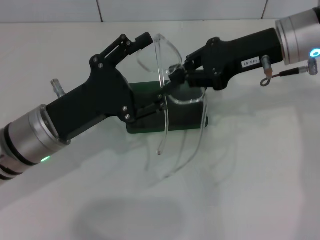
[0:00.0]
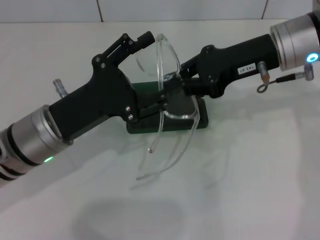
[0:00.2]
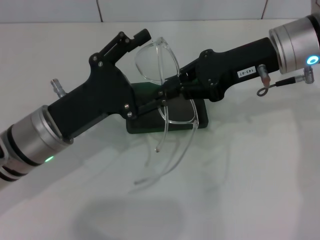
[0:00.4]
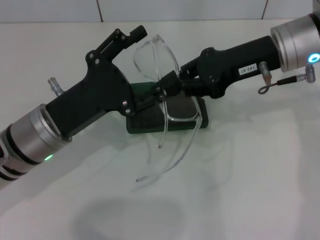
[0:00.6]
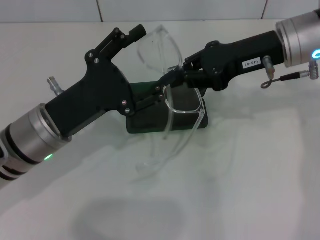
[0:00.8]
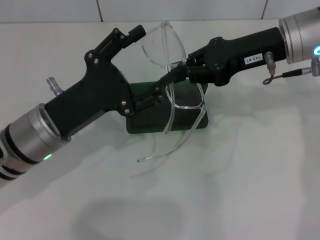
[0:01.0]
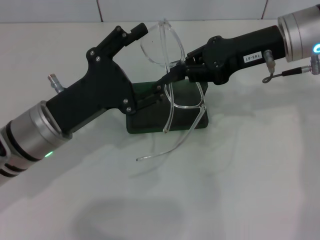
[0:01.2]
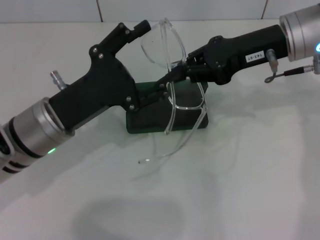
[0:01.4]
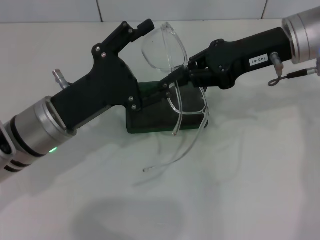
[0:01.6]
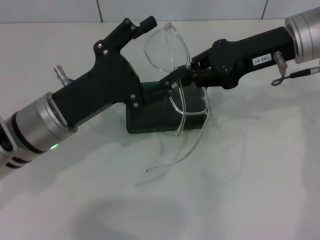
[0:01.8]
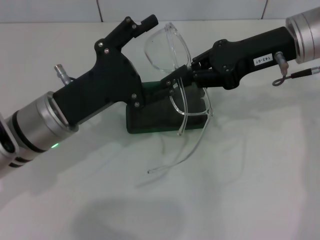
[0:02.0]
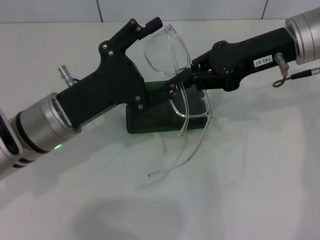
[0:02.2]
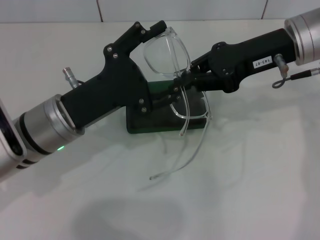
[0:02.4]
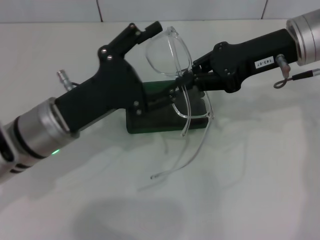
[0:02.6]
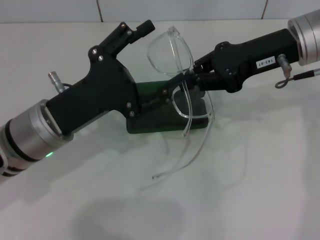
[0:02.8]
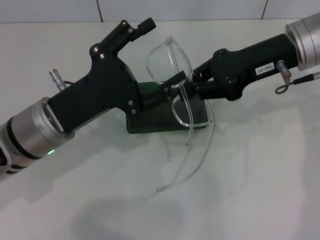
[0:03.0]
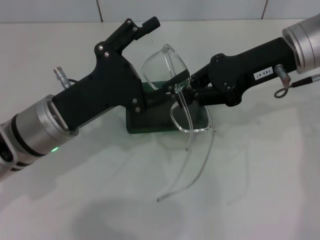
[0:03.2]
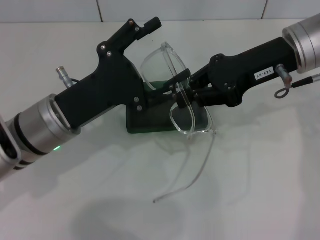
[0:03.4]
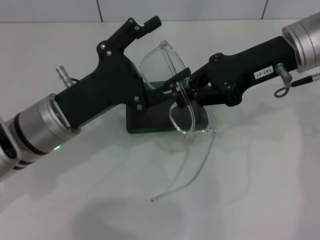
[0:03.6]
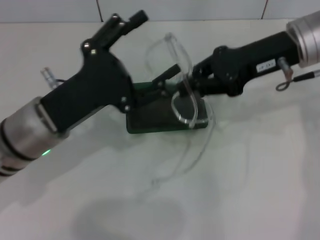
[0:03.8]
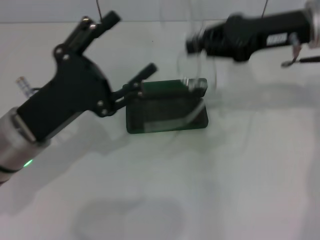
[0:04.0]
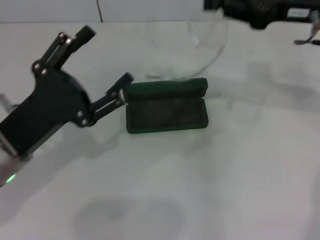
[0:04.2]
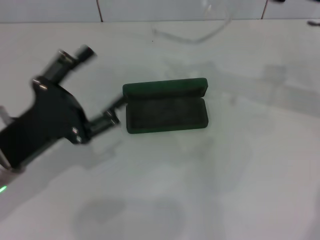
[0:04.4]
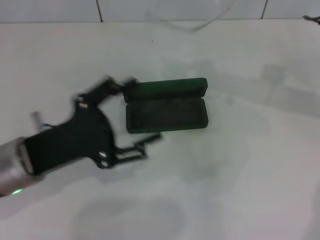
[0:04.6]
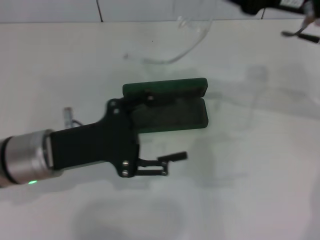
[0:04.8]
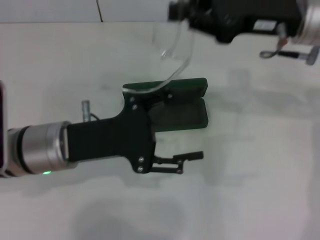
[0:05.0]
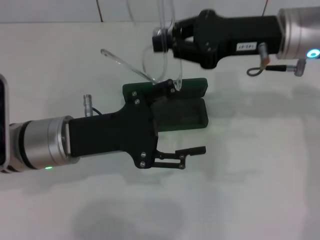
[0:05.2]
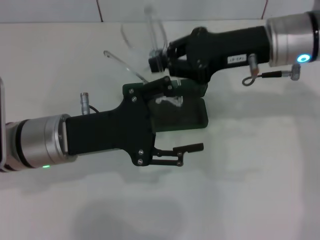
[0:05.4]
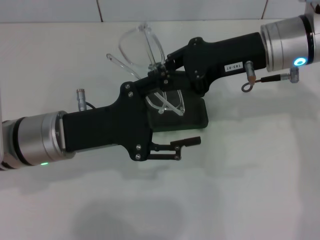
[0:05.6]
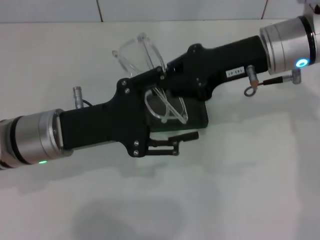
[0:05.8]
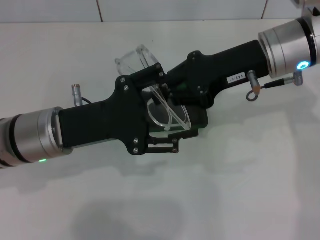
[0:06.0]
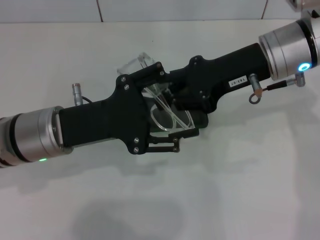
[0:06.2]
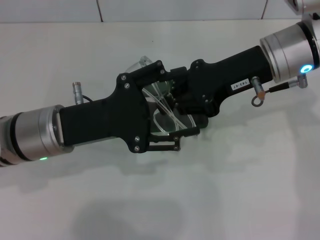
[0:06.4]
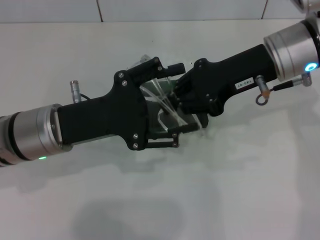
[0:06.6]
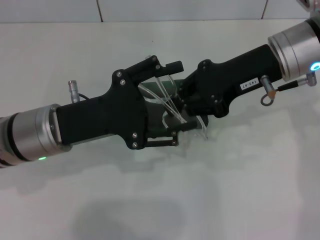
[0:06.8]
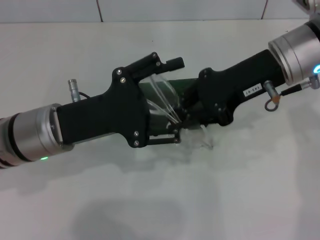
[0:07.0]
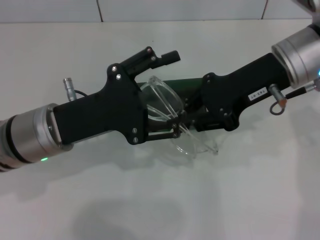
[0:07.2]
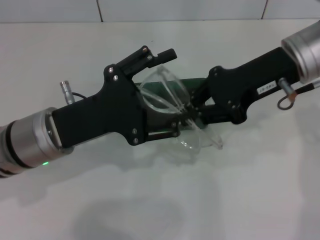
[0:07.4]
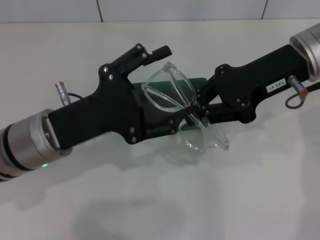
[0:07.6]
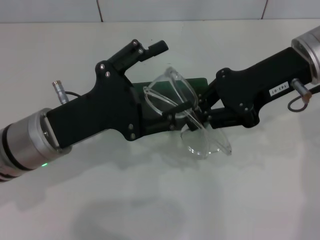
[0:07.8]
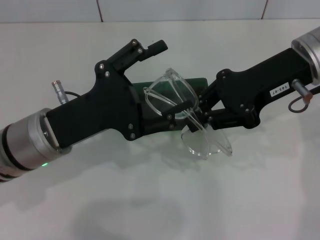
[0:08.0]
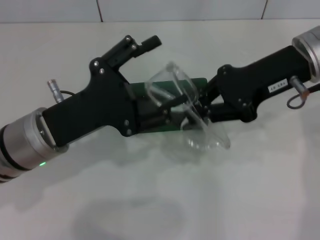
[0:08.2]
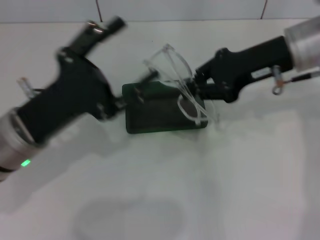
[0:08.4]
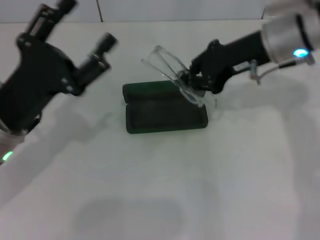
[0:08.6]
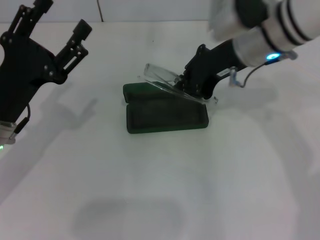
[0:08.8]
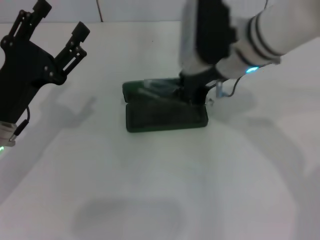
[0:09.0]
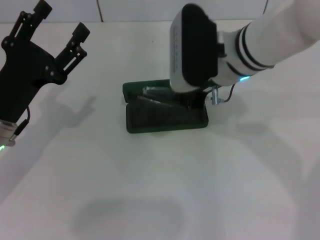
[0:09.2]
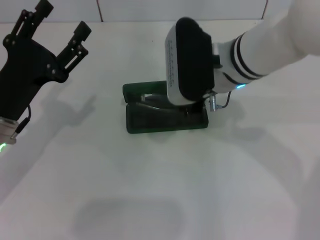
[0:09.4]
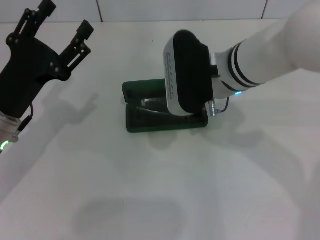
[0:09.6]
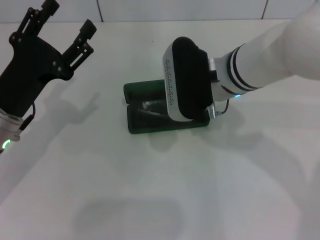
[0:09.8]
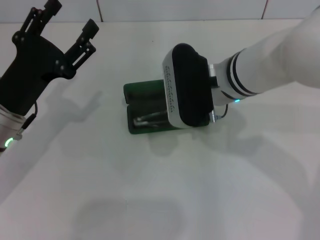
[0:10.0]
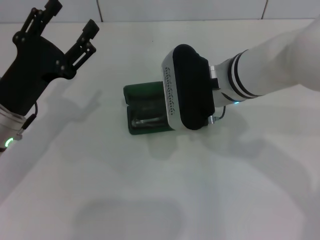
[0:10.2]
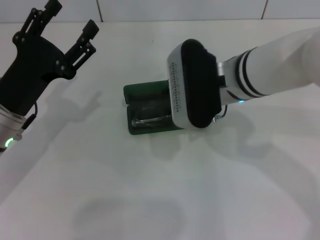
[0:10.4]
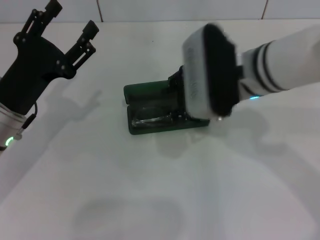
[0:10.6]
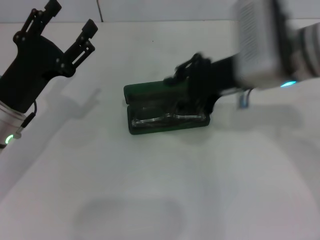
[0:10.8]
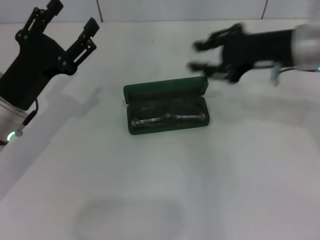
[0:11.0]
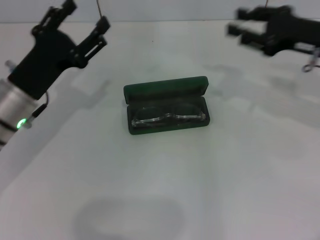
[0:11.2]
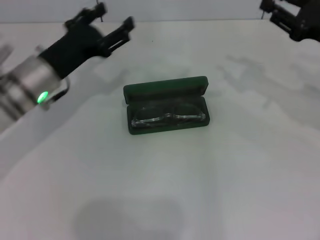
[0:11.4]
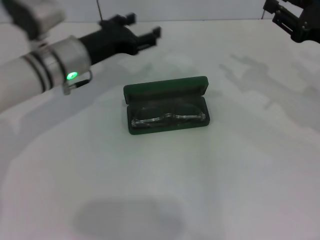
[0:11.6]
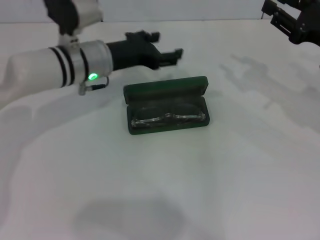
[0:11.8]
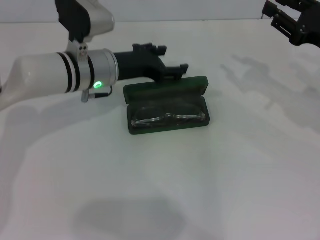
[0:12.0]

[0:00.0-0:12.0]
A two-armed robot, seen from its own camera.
Step, 0.0 to 8.0 s: Fold the frame with your left hand.
Step, 8.4 to 10.4 s: Put the glasses into the case with your right hand.
0.0 to 3.0 s: The grippers move only a little.
3.0 to 4.4 s: The right gripper shifts about 5 cm to the right. The left gripper moves to the left, about 5 cm.
4.4 to 6.0 s: The right gripper heads to the left, covering about 10 cm. The left gripper moves to the right, about 5 cm.
7.6 to 9.0 s: The grippers both shift to the left by approximately 10 cm.
9.0 to 10.4 s: The right gripper opens.
10.4 to 12.0 s: The left gripper goes roughly 15 cm forward and to the right, while the right gripper travels to the right by about 20 cm.

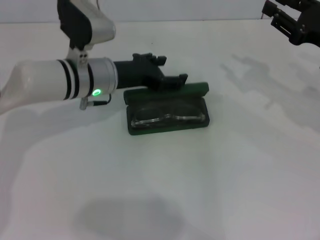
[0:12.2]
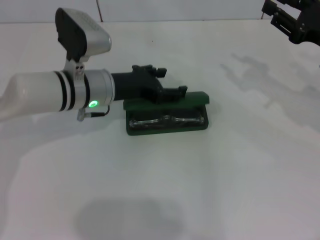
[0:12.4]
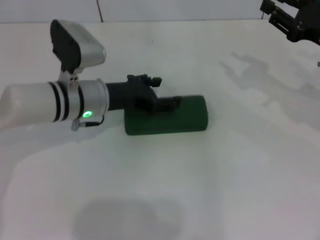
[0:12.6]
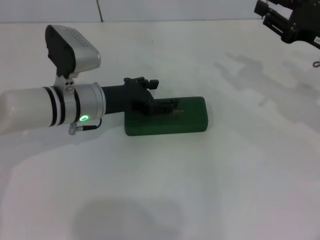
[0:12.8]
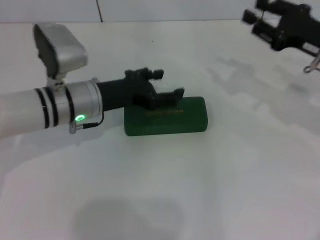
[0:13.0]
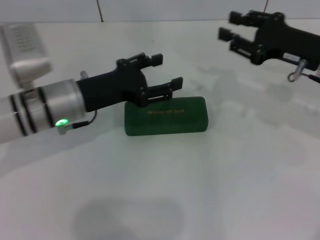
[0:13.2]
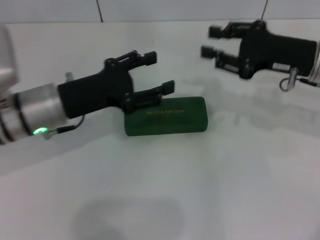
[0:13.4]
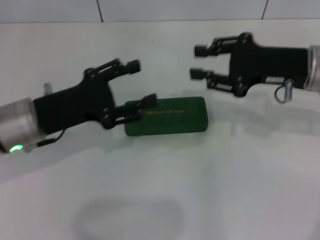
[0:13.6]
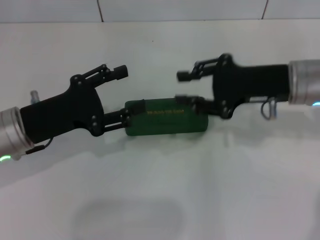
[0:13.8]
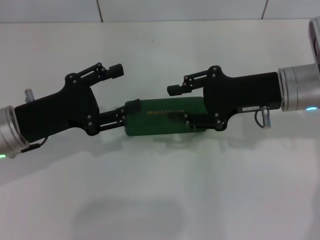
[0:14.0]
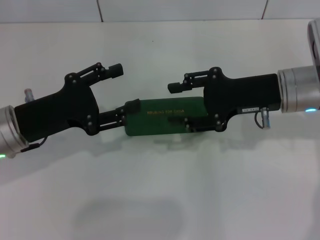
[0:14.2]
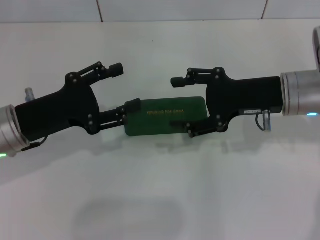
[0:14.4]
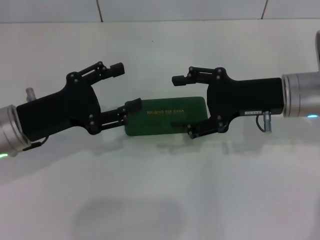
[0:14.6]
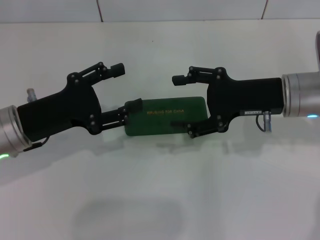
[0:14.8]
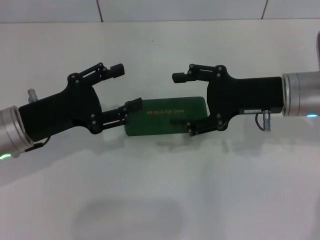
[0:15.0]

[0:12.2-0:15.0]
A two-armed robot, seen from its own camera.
12.2 to 13.6 s: The left gripper travels backward and to the left by roughly 15 cm; the right gripper goes approximately 5 cm to the left.
13.6 to 15.0 s: The right gripper opens.

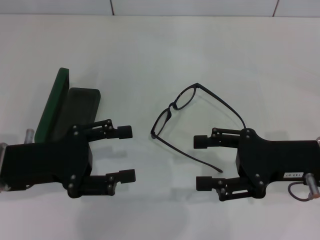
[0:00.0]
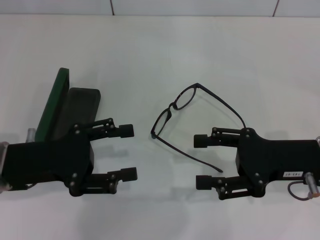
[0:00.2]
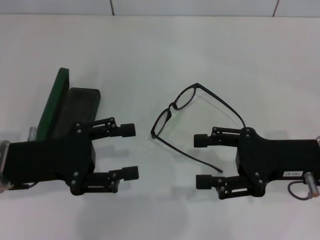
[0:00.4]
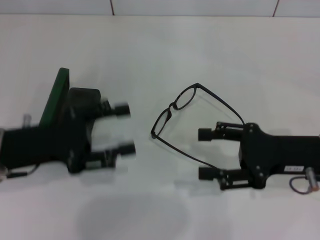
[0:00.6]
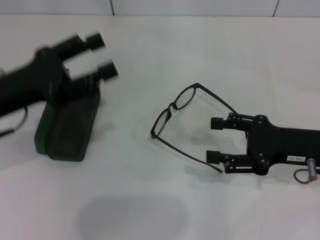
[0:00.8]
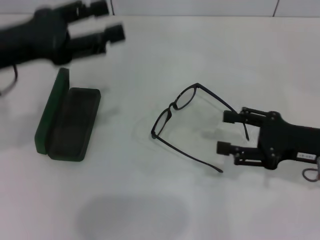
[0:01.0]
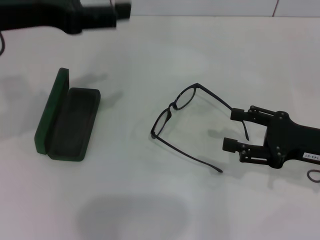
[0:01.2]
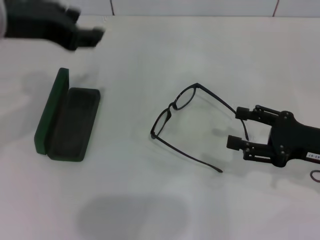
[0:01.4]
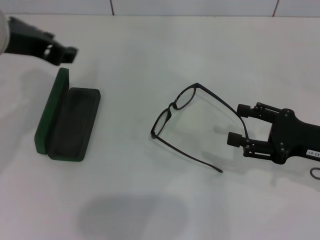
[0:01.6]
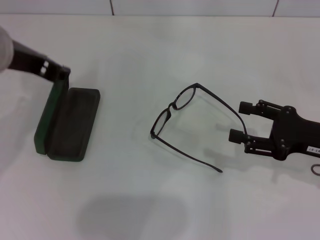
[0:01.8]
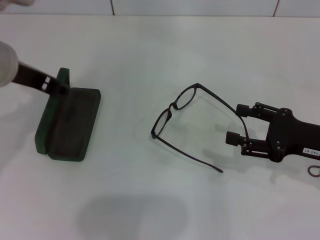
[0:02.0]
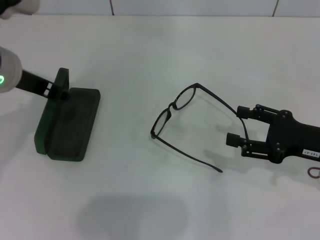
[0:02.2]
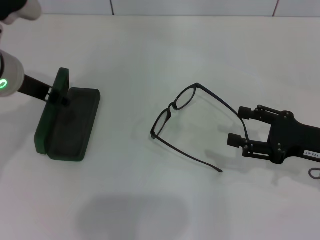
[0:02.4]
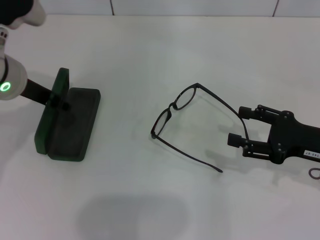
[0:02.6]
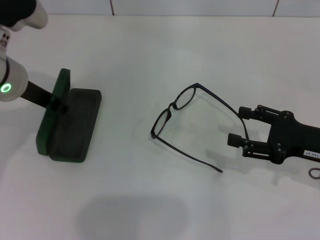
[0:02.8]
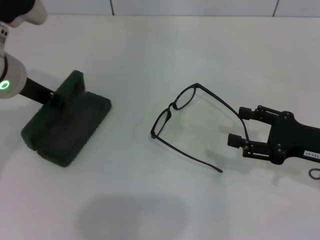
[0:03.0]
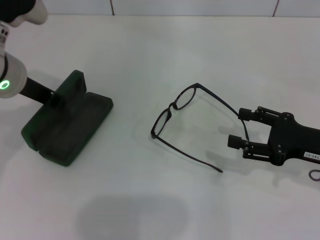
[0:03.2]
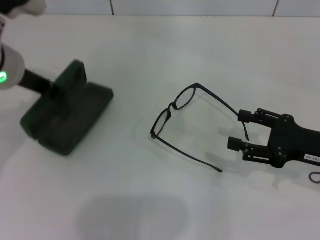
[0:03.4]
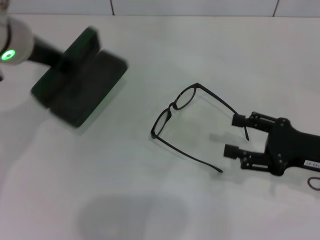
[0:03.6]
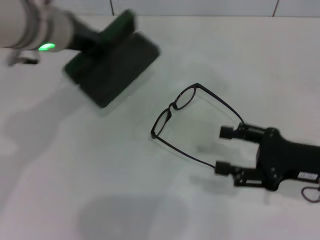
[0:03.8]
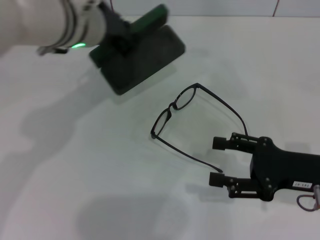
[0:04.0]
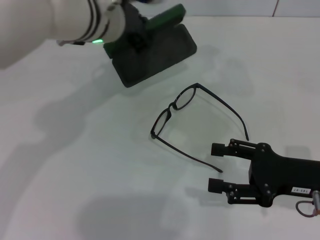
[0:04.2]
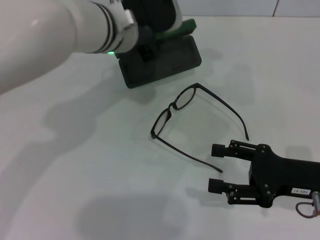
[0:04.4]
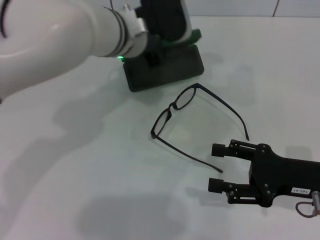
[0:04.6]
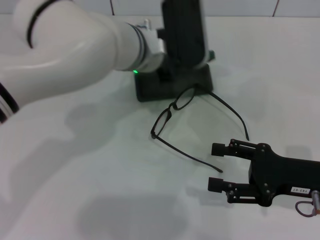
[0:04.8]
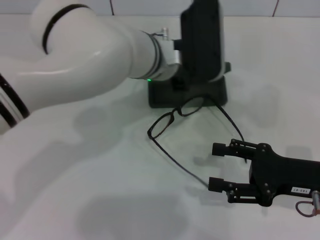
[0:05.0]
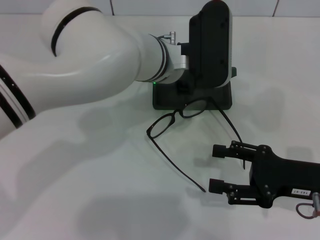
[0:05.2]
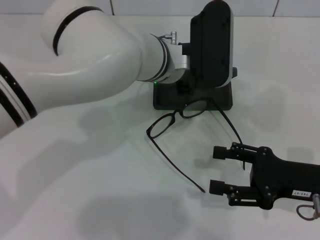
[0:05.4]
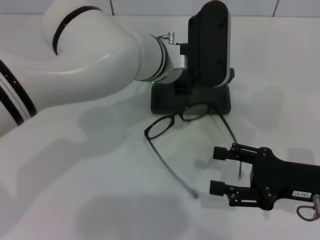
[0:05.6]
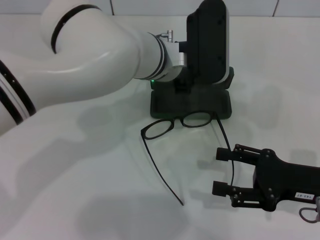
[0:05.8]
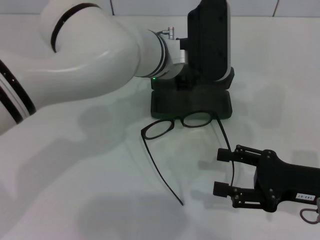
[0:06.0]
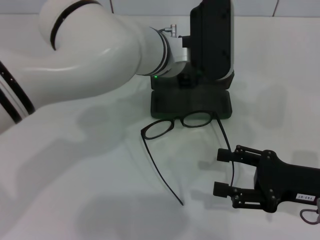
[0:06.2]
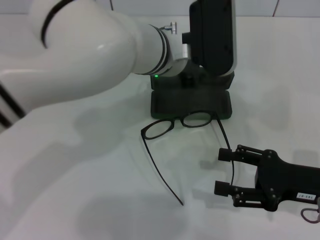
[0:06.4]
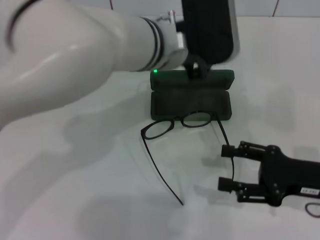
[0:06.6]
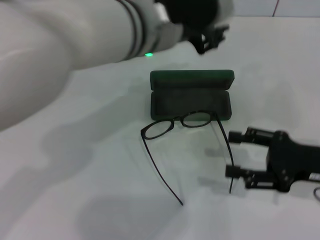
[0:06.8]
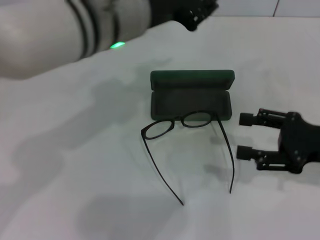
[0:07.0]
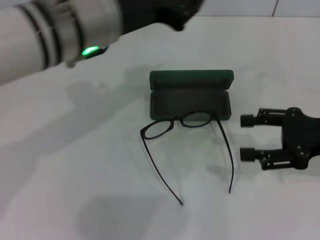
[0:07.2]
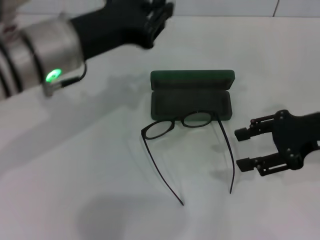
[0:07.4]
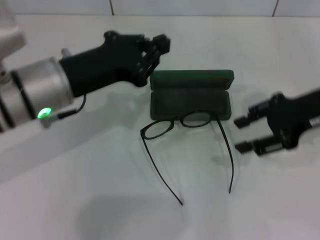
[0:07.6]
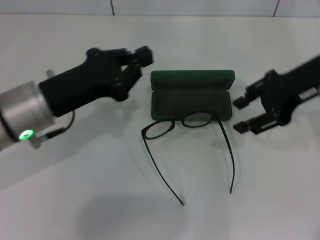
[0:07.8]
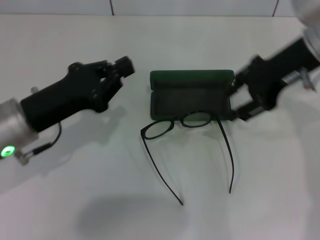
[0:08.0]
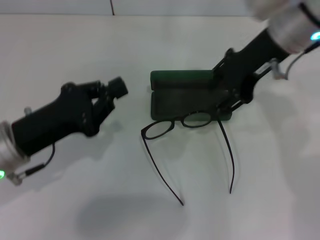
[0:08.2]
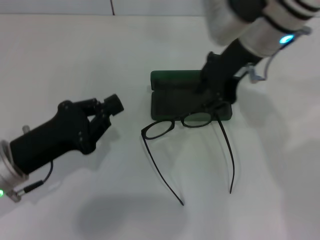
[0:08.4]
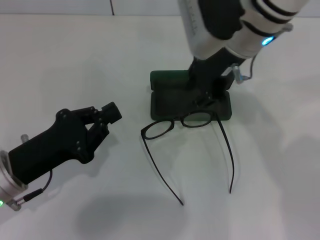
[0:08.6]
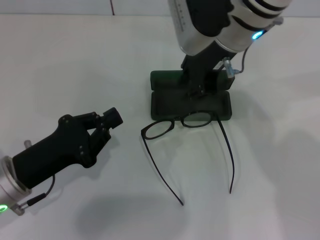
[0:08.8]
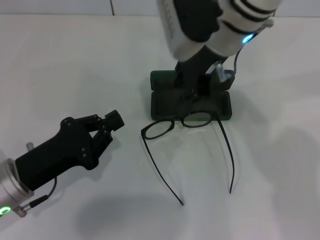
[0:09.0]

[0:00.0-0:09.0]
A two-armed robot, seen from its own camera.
Step, 0.0 to 2.8 s: Grab the glasses case with your left hand.
Step, 3.0 to 6.0 s: Place the glasses case in the center of the table with your left hand.
0.0 to 1.6 s: The right gripper ends up roughly 5 cm from where it was. Meanwhile the left gripper travels upward and forward by roughly 20 cm.
1.6 to 3.0 s: The left gripper heads downward, covering roughly 10 cm.
3.0 to 4.4 s: The left gripper heads to the right and forward, covering approximately 15 cm.
4.4 to 6.0 s: The left gripper heads to the right, covering some 5 cm.
6.0 to 7.6 s: The left gripper goes approximately 20 cm to the left and backward; the right gripper goes about 15 cm upward and forward.
7.6 to 9.0 s: The left gripper heads downward, backward and to the left, covering approximately 15 cm. The right gripper goes approximately 20 cm to the left, and closes its fingers.
